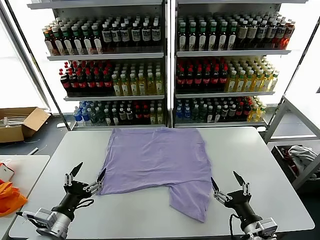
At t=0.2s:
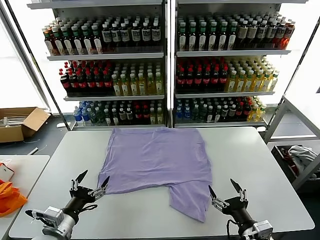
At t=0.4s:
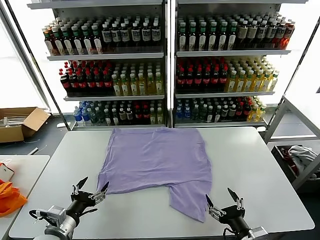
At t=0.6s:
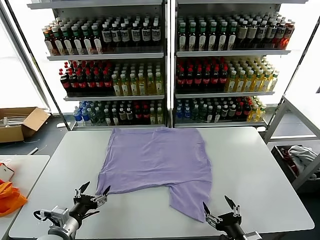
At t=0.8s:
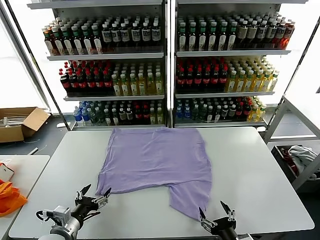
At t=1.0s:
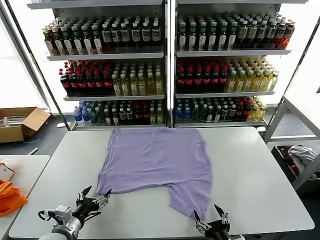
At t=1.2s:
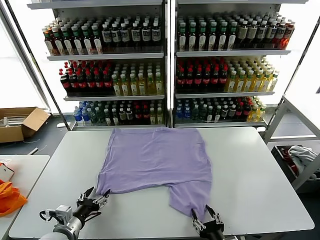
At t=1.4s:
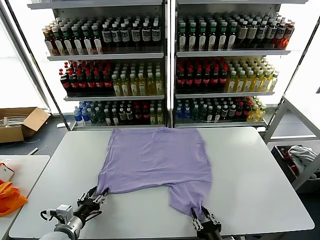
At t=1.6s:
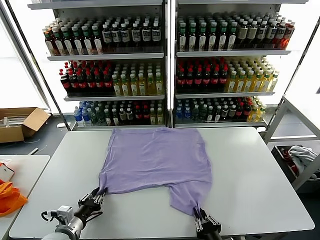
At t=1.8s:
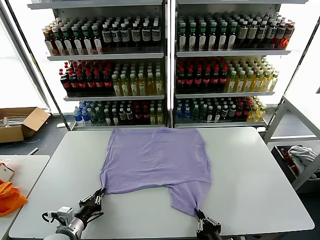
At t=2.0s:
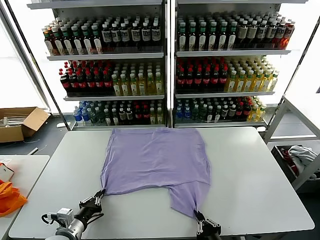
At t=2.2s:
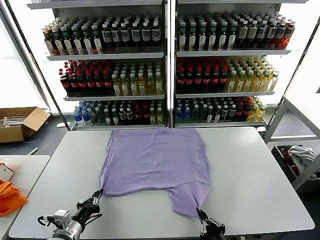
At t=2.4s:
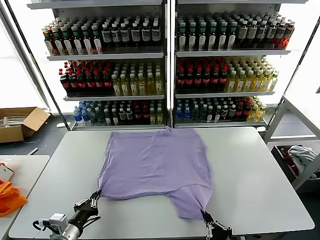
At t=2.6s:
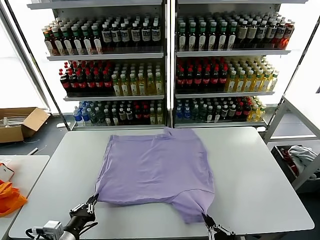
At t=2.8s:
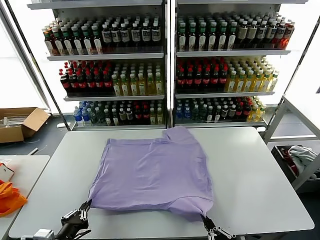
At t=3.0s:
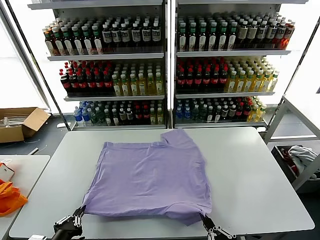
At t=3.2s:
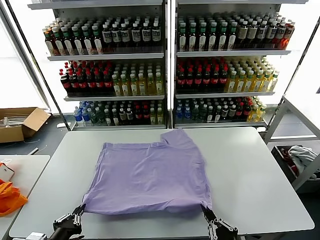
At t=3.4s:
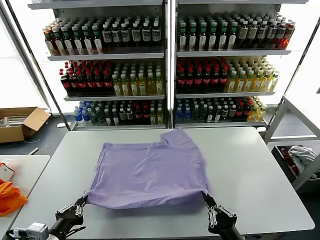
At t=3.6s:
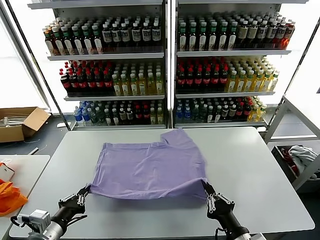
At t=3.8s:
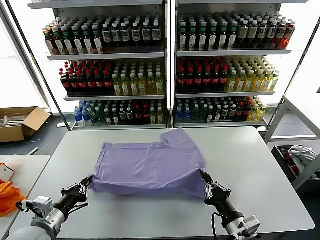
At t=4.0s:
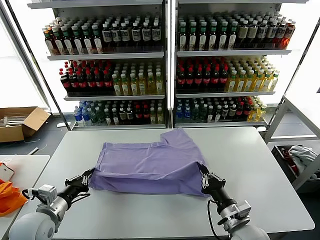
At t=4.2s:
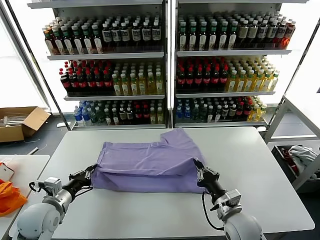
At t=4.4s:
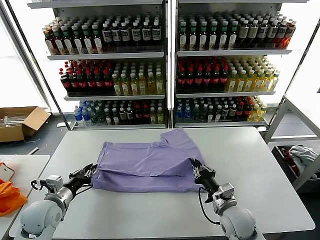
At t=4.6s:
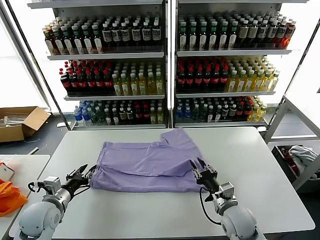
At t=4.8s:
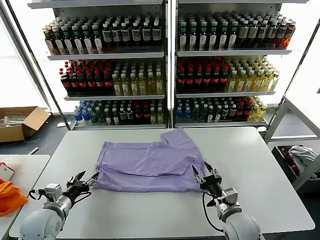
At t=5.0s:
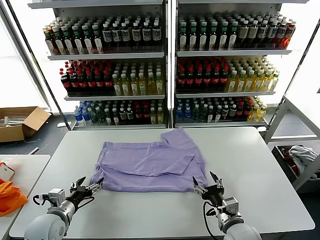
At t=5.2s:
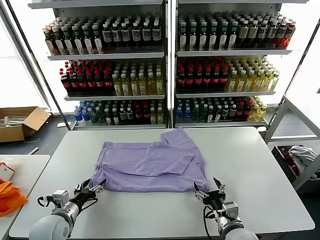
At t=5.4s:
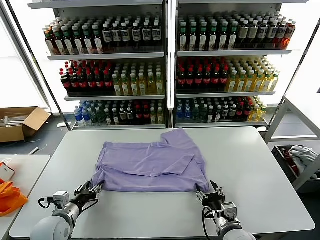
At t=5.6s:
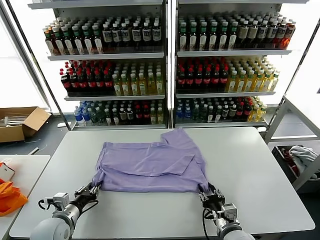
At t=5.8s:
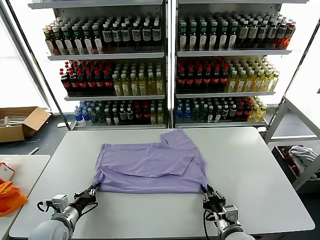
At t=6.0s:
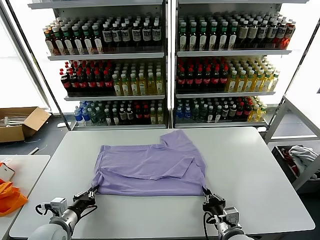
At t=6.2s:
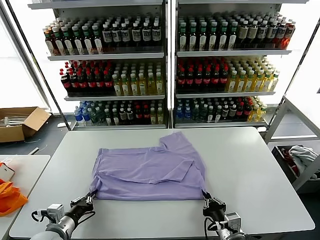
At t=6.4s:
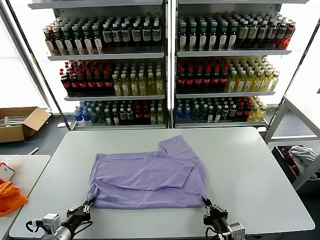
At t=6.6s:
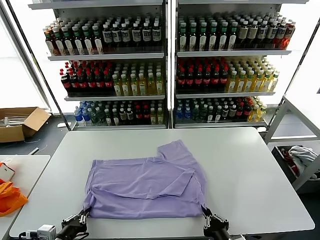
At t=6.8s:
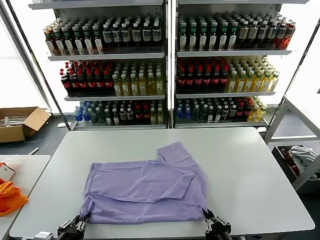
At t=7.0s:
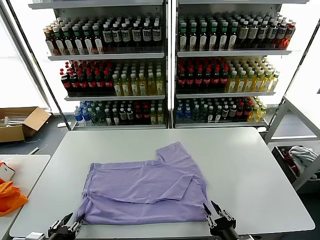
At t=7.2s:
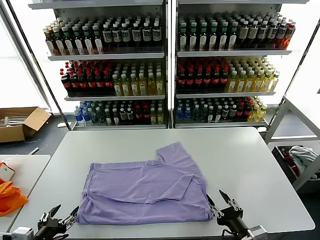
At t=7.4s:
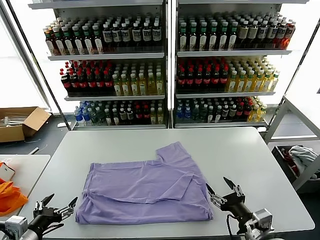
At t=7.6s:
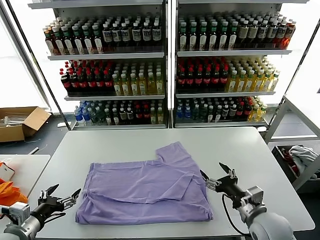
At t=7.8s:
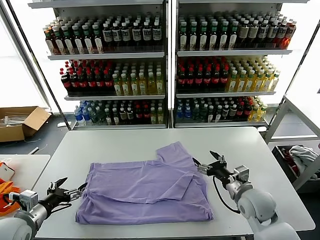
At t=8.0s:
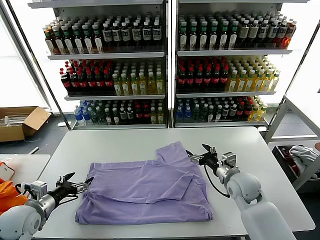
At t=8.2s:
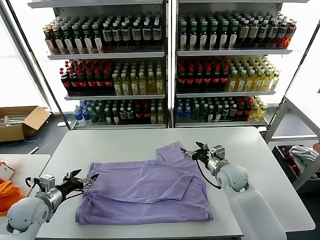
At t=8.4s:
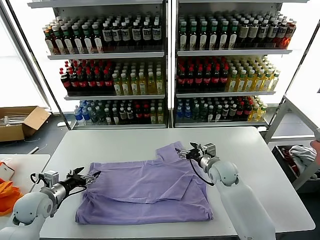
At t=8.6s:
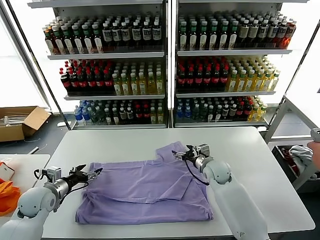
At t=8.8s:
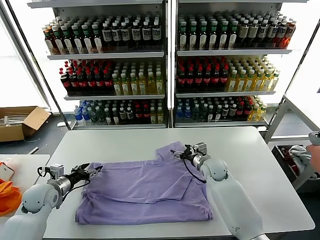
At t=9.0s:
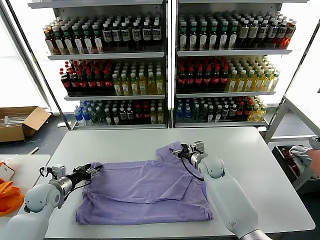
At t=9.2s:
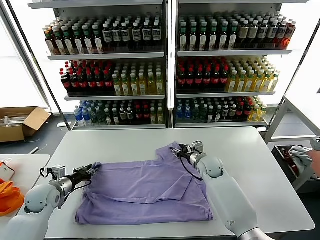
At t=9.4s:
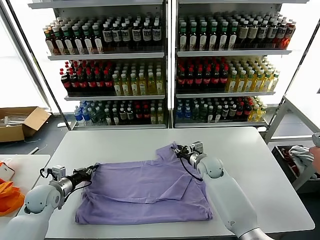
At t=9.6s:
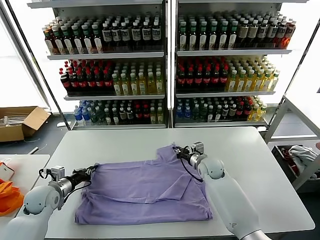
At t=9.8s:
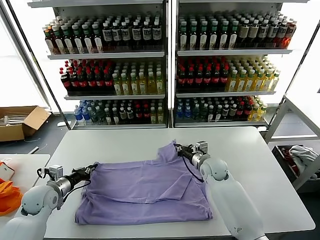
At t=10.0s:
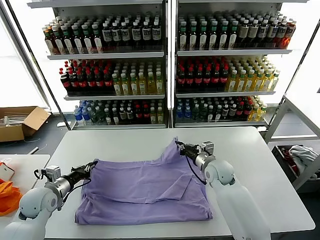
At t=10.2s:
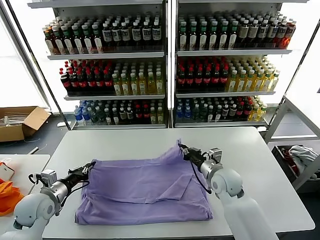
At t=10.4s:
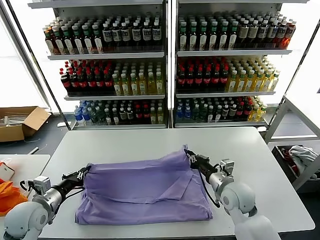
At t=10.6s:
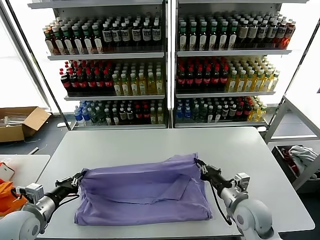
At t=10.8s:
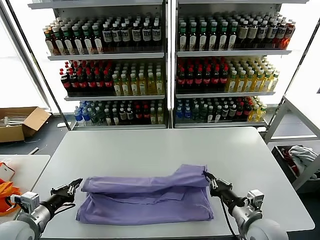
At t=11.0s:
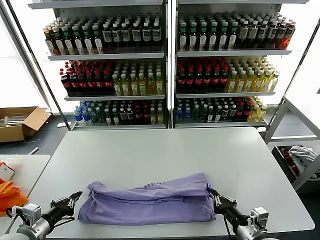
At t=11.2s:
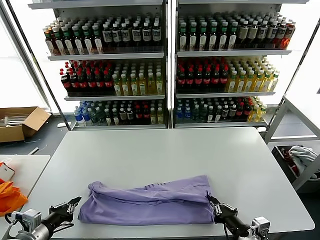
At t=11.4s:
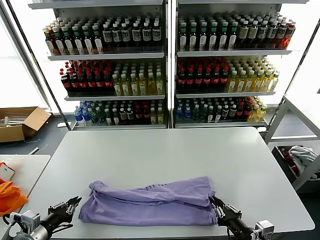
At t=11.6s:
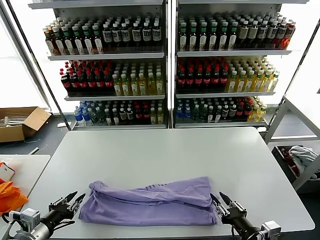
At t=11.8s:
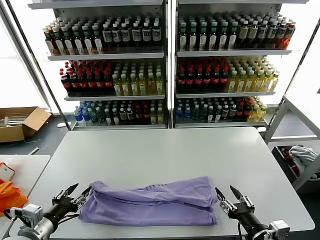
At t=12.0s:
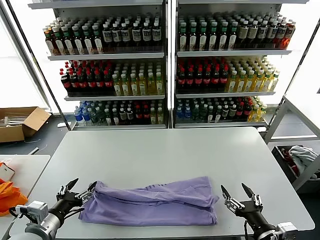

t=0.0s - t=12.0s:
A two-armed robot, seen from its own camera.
Task of the whole recording: fold and organize the clothes.
Step, t=0.0s - t=2.0s: use both grippers simultaneously to clamp the lower edge of the clothing fabric.
Step, t=2.2s - t=4.6s: use both grippers to drag the lower edge of the fabric forward and fold it over the upper edge.
Step, t=4.8s - t=6.8s: Drag the clothes downward with both gripper.
Step, t=7.0s - t=9.6s: use both grippers simultaneously to clamp the upper edge of the clothing fabric.
Step, t=10.0s - t=11.4s: use both grippers to drag the upper edge of the fabric backward and fold it over the lower edge.
t=1.6s - t=3.0s: The right gripper shifts about 10 cm upward and backward. Meanwhile the left gripper travels backward and upward by approximately 15 cm.
t=3.0s - t=4.4s: The two grippers go approximately 20 cm forward. The right gripper opens up.
t=4.4s - t=6.0s: The left gripper heads backward, covering roughly 5 cm, and opens, then closes again. The right gripper heads backward, covering approximately 10 cm, and closes.
t=6.0s - t=7.6s: The right gripper goes approximately 15 cm forward, upward and to the right, and opens up, while the left gripper shifts roughly 10 cm upward and to the left, and opens.
t=7.6s - t=9.0s: The right gripper moves forward and to the left, approximately 20 cm. Meanwhile the left gripper shifts roughly 20 cm forward and downward, and closes up.
t=9.0s - t=10.4s: The left gripper heads backward, covering approximately 10 cm, and closes; the right gripper heads backward, covering roughly 20 cm, and closes up.
t=10.4s - t=12.0s: The right gripper shifts approximately 20 cm backward, and opens its fingers; the left gripper goes some 10 cm backward and to the right, and opens its fingers.

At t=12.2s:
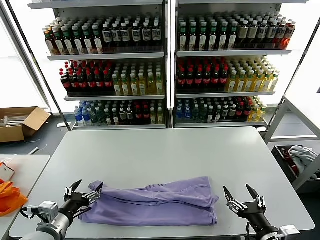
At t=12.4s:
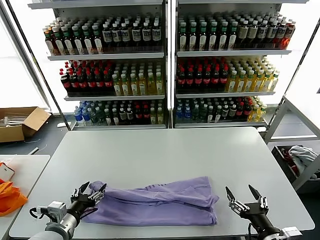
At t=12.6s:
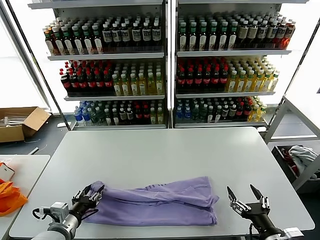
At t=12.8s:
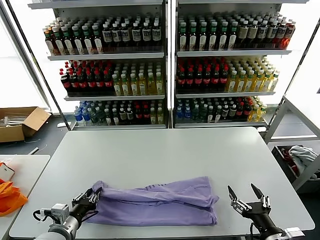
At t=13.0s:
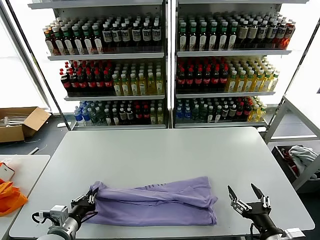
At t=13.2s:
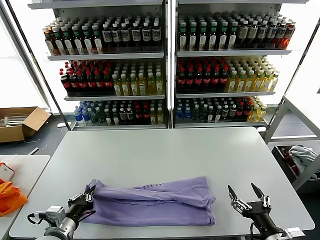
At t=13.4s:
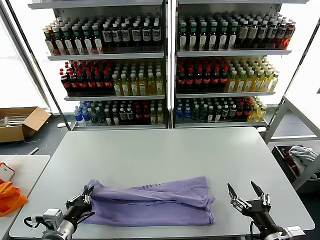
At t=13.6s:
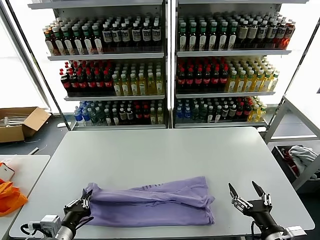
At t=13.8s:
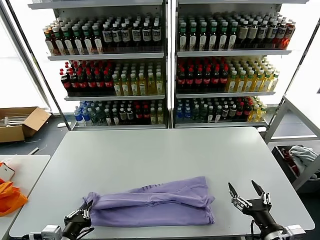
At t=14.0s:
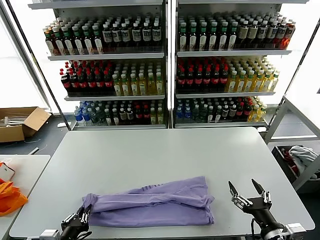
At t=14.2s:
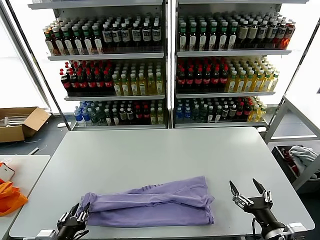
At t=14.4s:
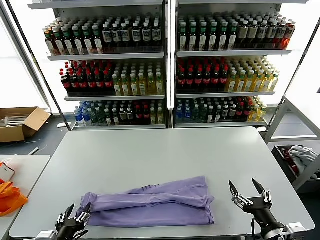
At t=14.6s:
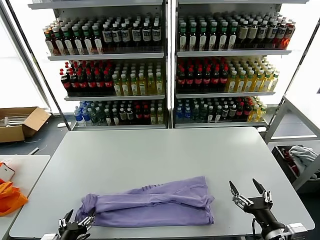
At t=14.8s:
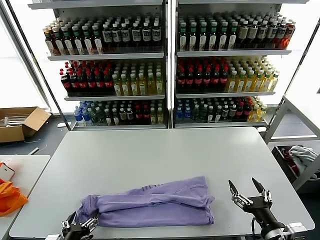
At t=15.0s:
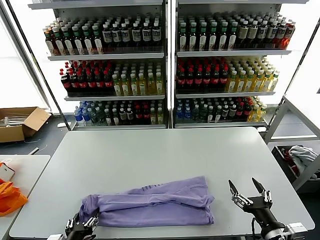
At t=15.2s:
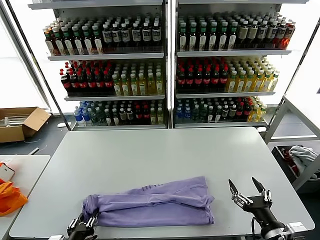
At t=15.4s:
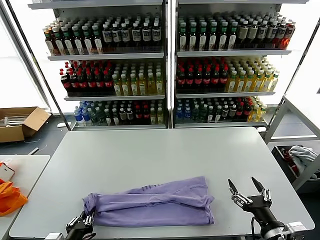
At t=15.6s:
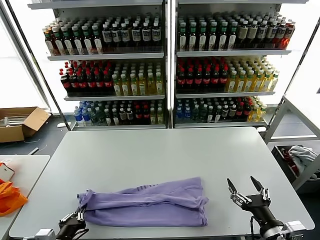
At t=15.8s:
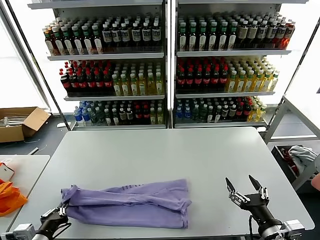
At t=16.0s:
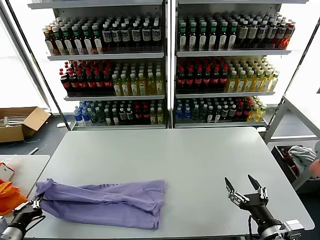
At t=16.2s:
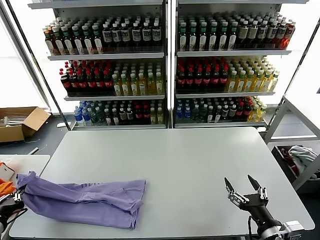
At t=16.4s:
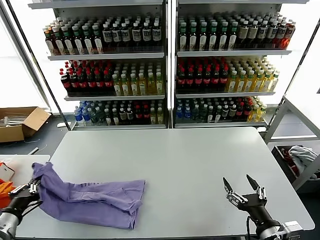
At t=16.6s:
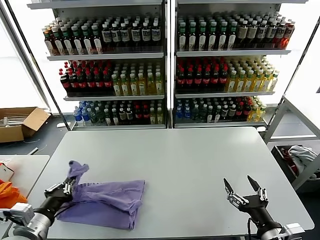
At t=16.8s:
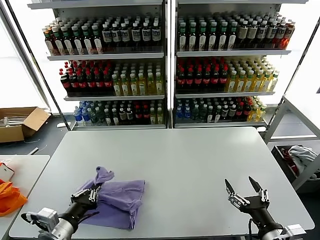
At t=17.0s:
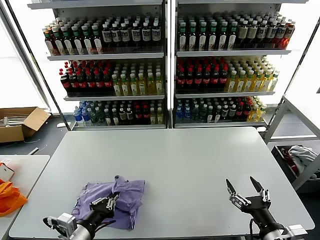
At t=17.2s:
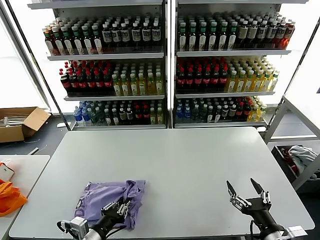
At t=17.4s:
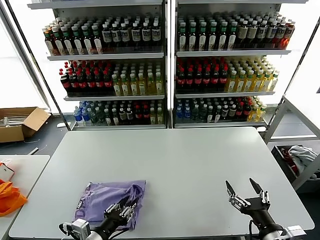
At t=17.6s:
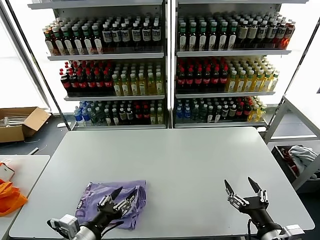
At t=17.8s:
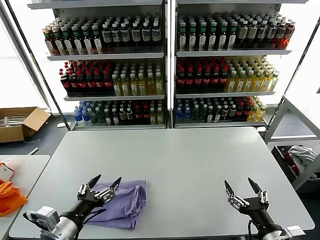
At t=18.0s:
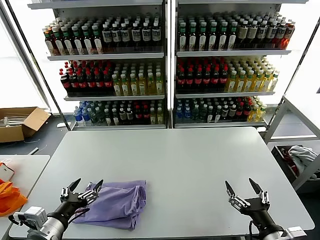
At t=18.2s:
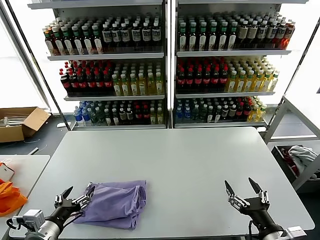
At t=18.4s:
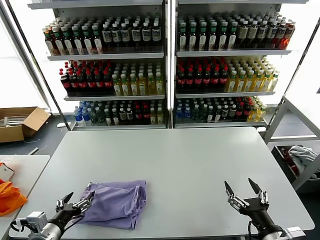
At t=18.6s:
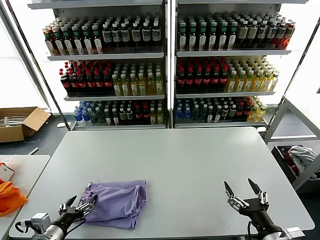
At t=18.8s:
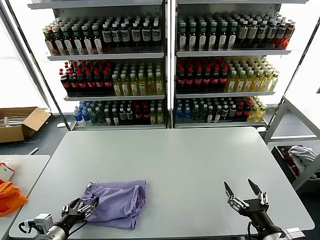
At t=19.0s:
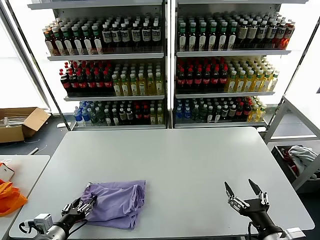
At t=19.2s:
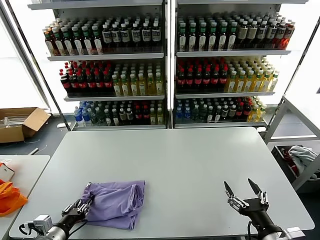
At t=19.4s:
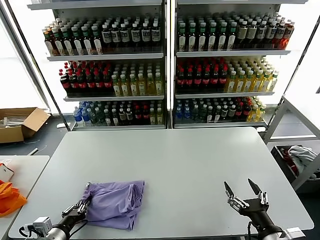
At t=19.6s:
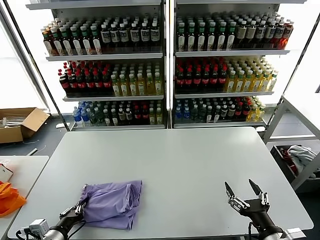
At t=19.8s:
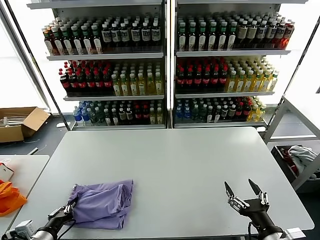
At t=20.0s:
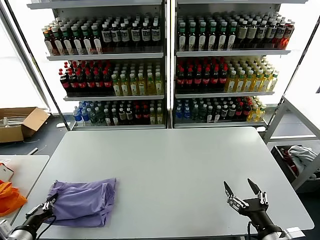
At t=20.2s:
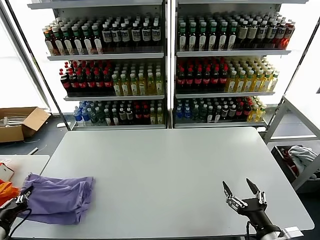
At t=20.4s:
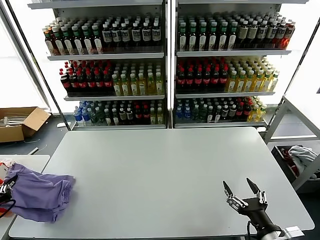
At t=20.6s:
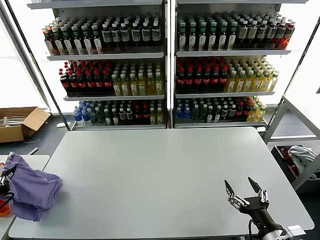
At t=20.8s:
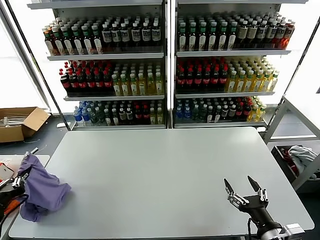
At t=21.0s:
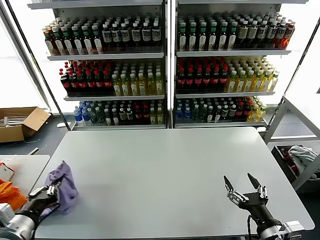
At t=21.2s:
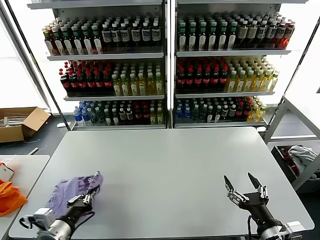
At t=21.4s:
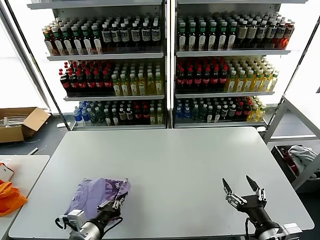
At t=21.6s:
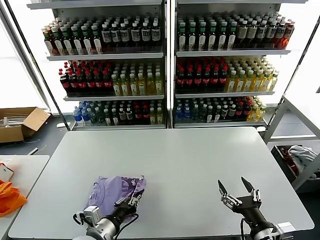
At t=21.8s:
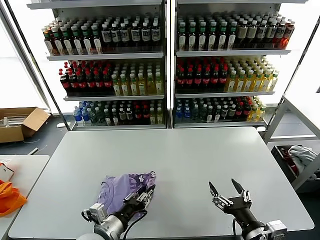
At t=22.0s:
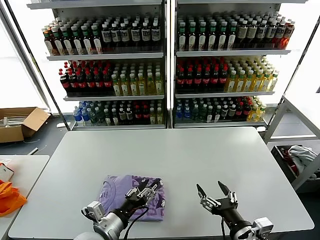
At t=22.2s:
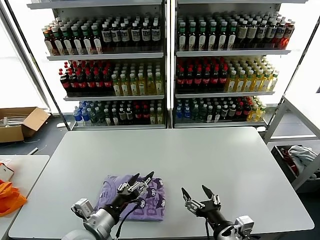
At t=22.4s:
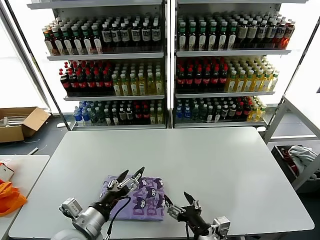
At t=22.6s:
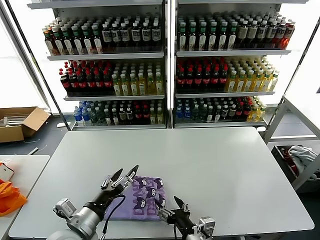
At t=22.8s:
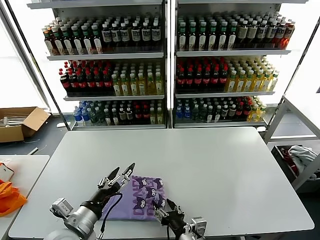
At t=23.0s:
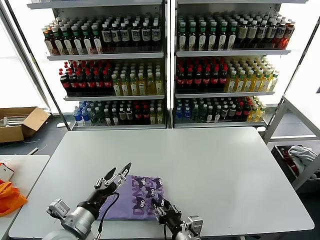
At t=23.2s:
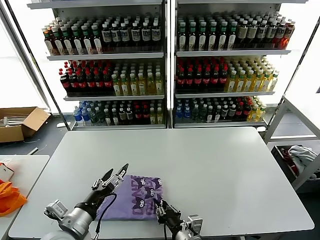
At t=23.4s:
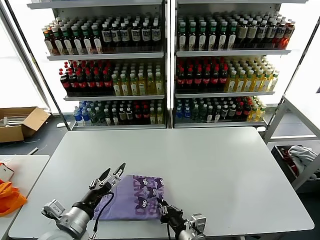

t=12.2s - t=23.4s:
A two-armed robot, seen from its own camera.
Task of the whole recording: fold and organize the clothes.
Step, t=12.2s - t=15.4s: use the left gripper to clamp the left edge of the fabric.
Step, t=15.8s - t=17.4s: use the left gripper to drag the left edge of the fabric to the left and folds it over the right edge.
Step, t=17.6s - t=21.8s: Flip the folded clothes over with left gripper.
t=12.2s - t=13.8s: The left gripper shifts roughly 5 cm backward, and closes up.
t=13.8s - t=15.4s: The left gripper opens and closes again.
t=15.4s - t=17.0s: The left gripper goes about 5 cm upward, and moves about 20 cm to the left and comes back.
t=17.0s - t=18.6s: The left gripper shifts about 10 cm to the left, and opens.
t=18.6s - t=20.2s: The left gripper travels to the left by approximately 10 cm, and closes up.
t=20.2s - t=21.8s: The left gripper travels to the right by some 25 cm.
t=21.8s - t=23.4s: The right gripper shifts roughly 15 cm to the left and downward, and closes up; the left gripper goes approximately 5 cm to the left, and opens its fingers.
